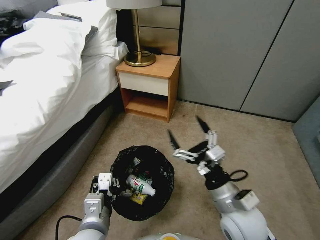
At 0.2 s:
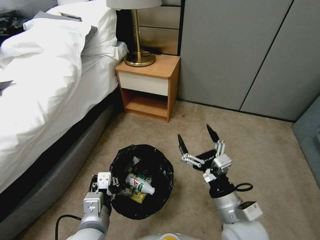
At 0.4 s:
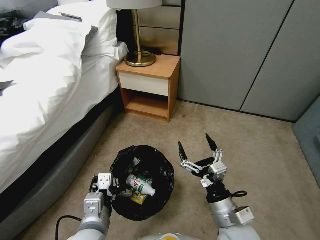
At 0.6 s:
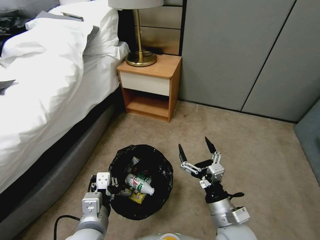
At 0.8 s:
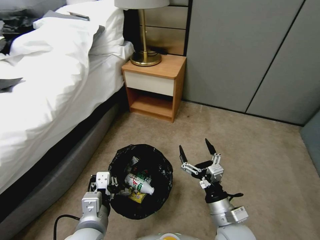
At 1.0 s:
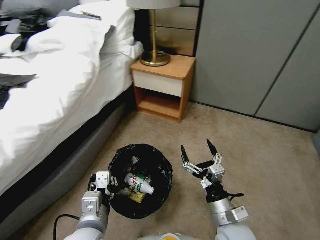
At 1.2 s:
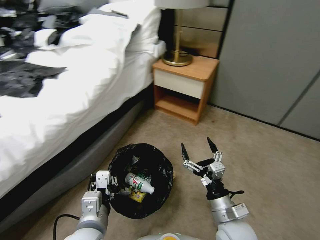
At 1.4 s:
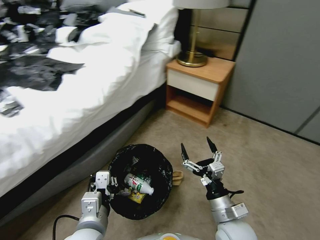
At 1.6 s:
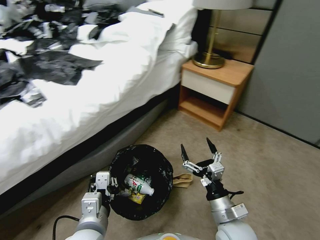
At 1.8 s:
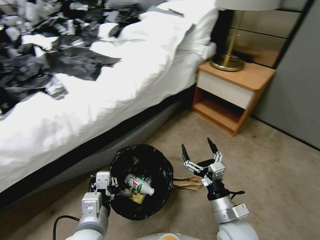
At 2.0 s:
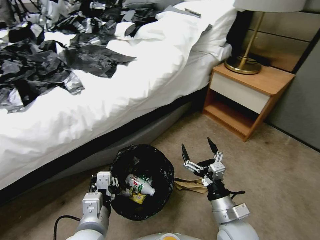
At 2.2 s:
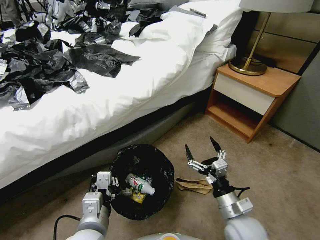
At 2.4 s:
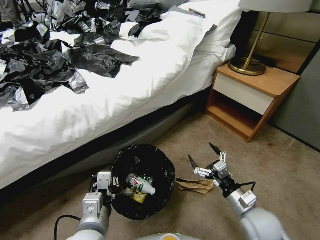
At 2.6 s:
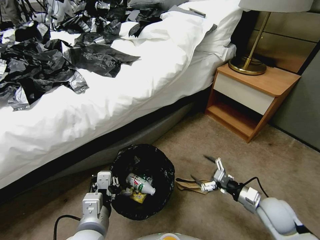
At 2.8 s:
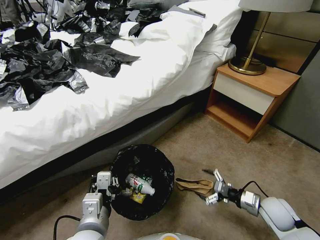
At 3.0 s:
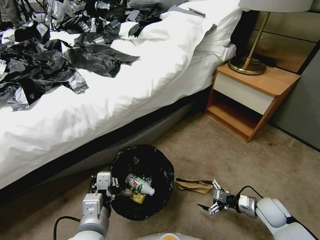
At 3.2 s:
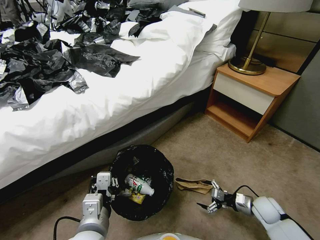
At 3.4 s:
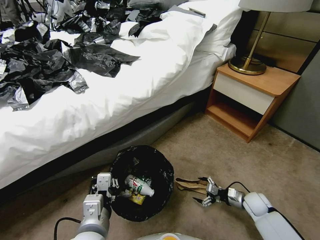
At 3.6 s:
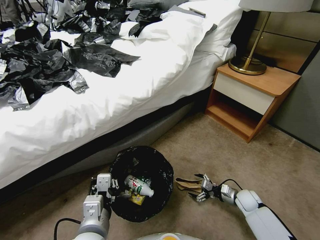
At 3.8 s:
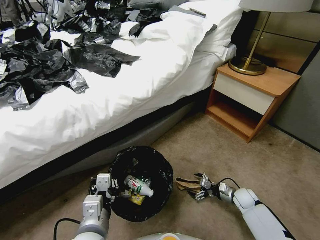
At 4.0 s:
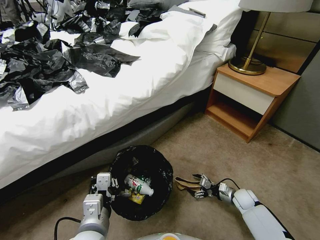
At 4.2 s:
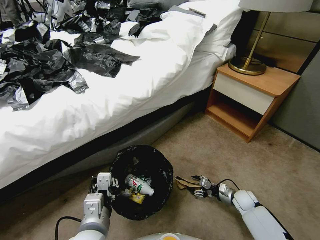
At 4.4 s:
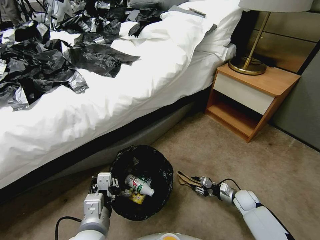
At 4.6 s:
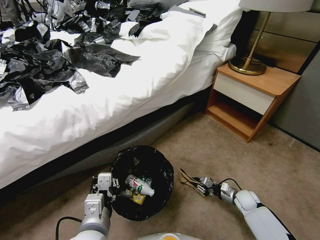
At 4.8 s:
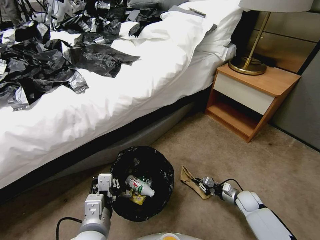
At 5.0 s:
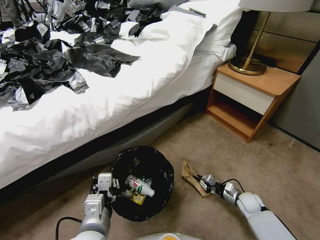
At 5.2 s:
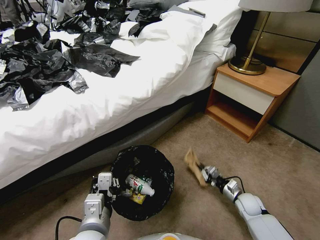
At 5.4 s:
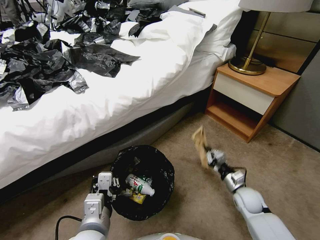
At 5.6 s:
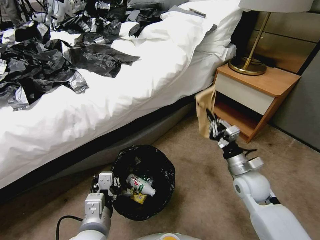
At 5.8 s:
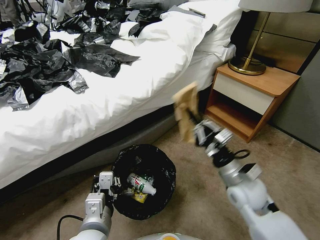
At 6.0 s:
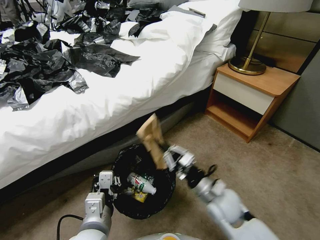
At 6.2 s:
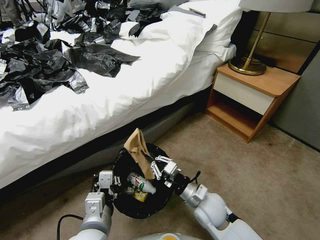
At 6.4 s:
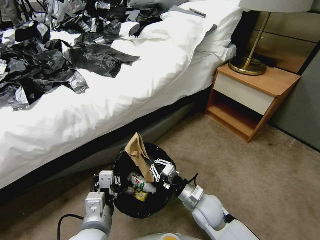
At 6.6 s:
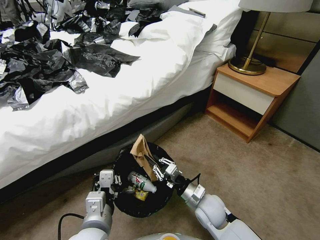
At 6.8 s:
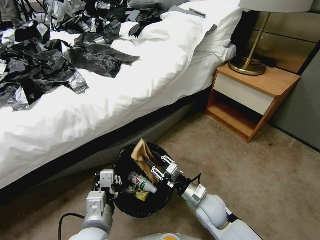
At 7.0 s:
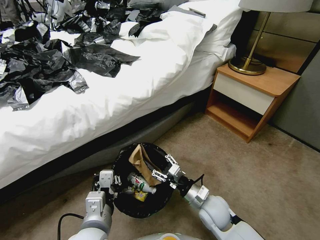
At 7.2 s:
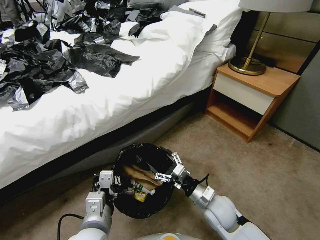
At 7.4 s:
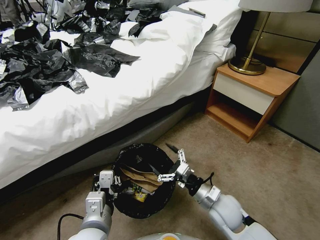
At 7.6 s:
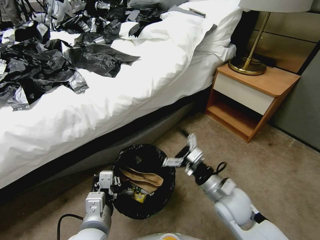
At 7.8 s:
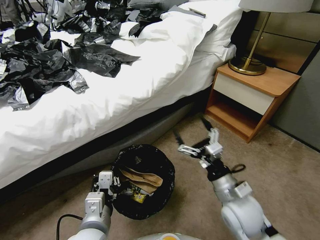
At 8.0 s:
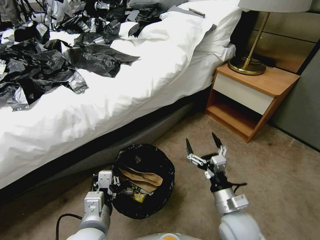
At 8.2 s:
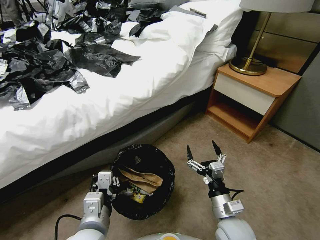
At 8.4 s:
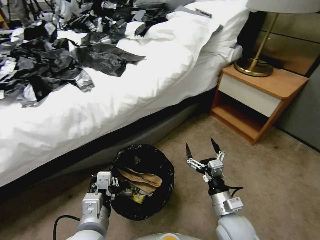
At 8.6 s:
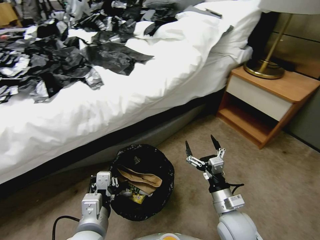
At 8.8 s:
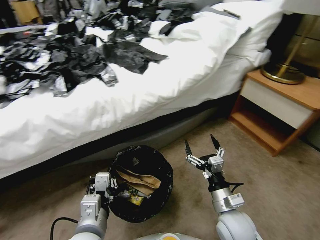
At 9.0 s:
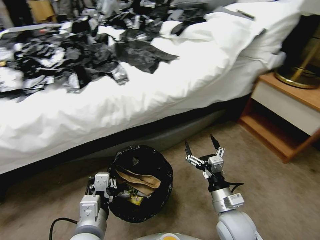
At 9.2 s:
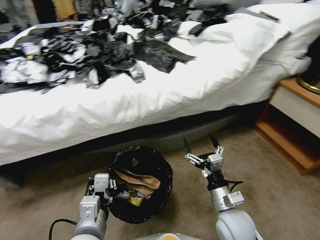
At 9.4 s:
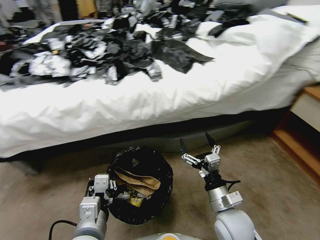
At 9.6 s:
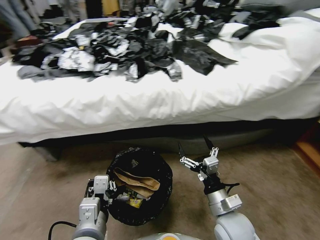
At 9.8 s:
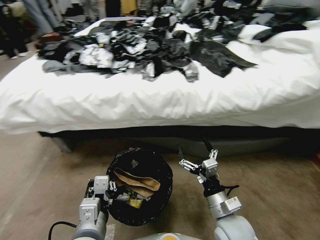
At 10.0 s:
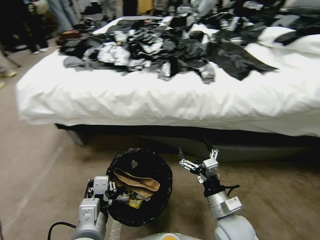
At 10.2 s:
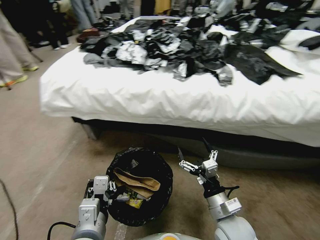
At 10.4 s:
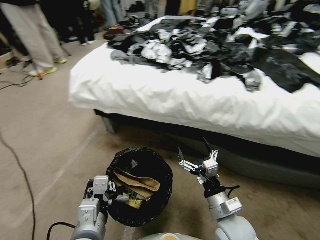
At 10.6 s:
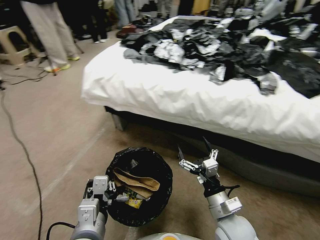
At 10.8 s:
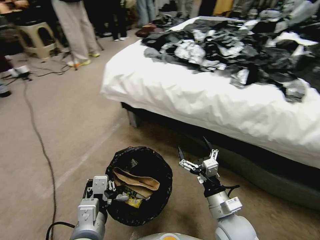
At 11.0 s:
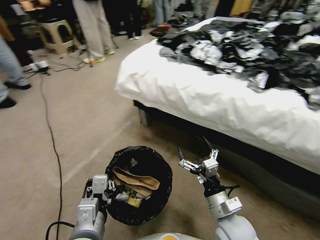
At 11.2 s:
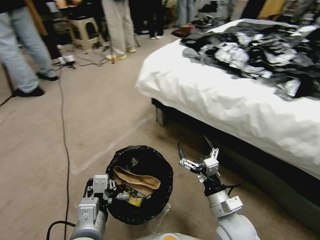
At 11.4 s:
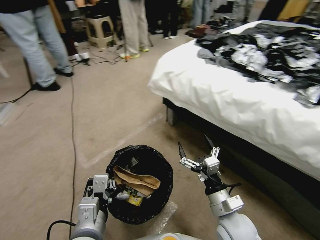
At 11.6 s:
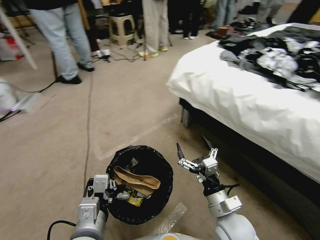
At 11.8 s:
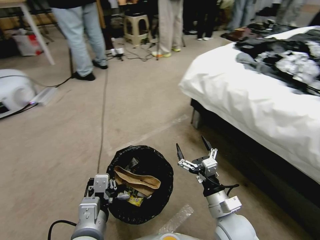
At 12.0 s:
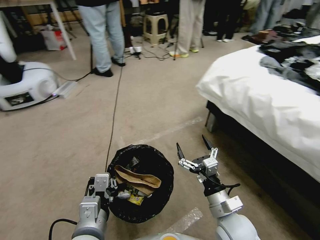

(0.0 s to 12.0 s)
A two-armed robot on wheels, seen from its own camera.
Task of the whole recording: Pick up the trash bin, then pick up the garbage from the floor and place it into the trash bin.
0.0 s - 1.6 s: The right gripper goes about 10 cm downward.
1.6 s - 3.0 s: The right gripper moves to the right, downward and forward, approximately 25 cm.
3.0 s - 4.4 s: The right gripper travels downward and forward by some 10 cm, and closes its fingers.
4.4 s - 6.0 s: The right gripper travels upward and to the left by about 30 cm, and closes.
6.0 s - 7.6 s: The right gripper goes downward and returns, about 5 cm each way, and opens its fingers.
7.6 s - 9.0 s: The right gripper travels backward by roughly 5 cm.

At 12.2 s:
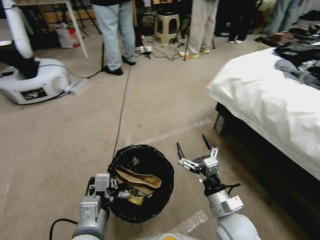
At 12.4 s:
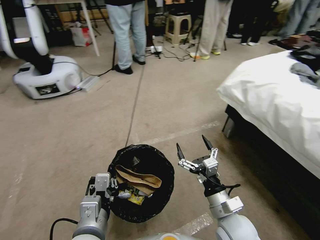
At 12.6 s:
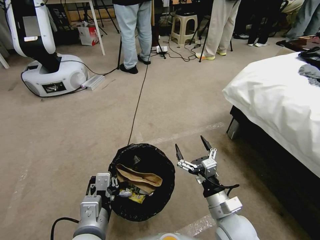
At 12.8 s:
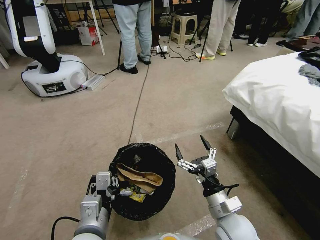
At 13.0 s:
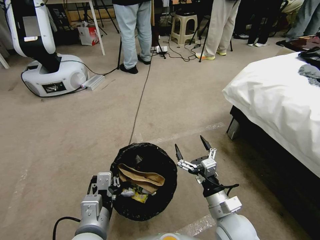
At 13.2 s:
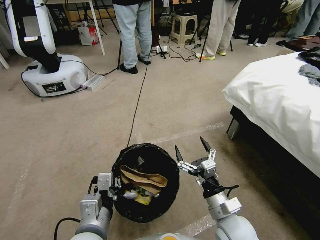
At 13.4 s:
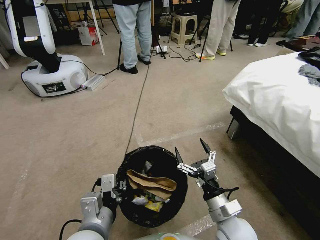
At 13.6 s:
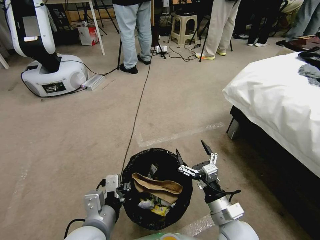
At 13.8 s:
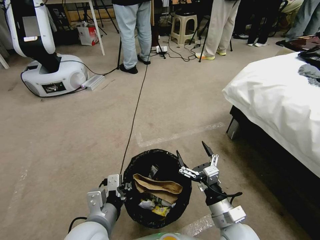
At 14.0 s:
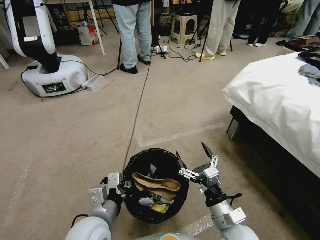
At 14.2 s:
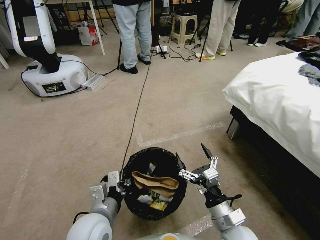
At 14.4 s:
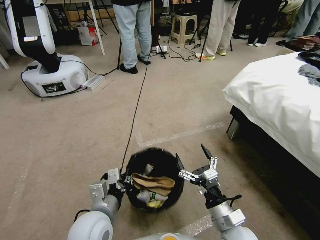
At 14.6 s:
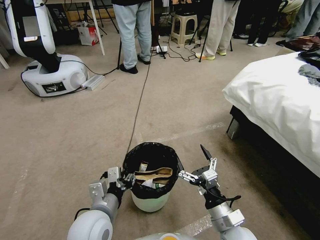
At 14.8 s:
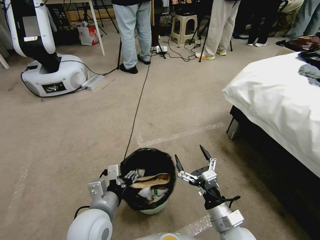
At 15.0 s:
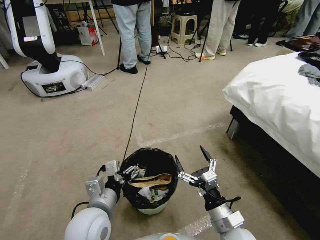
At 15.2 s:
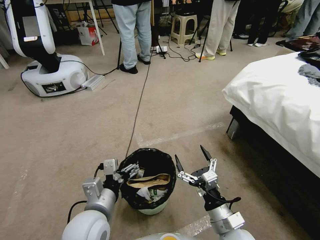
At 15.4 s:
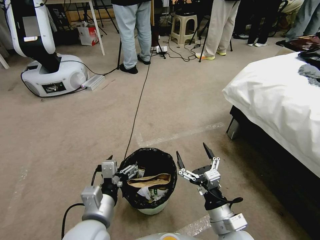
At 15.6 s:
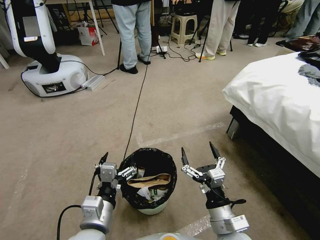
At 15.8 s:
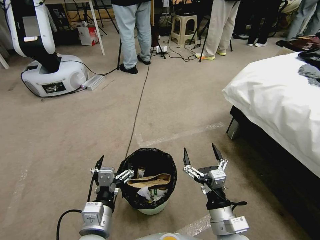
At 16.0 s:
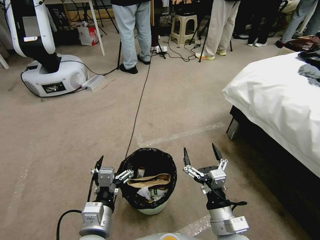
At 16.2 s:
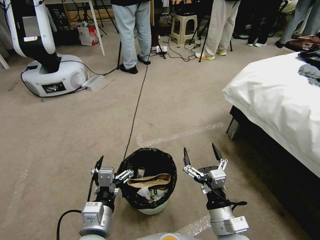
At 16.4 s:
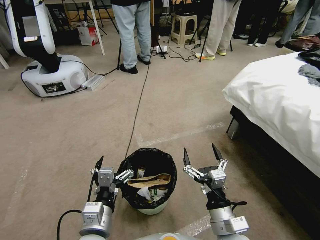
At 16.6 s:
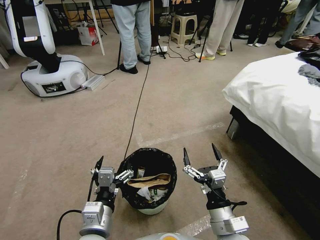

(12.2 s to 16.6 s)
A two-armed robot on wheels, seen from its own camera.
Task of the whole recording: Pick up the trash bin, then pick up the garbage from the floor and place it into the trash bin.
13.6 s - 15.2 s: The left gripper opens up.
